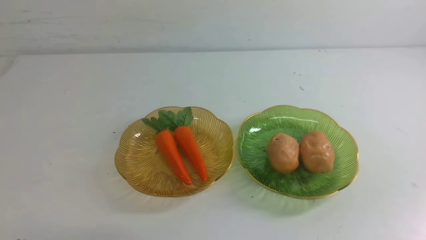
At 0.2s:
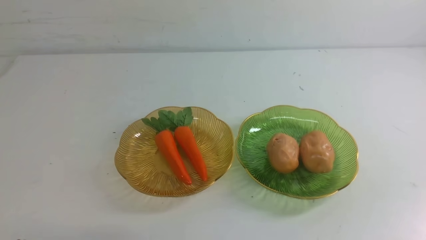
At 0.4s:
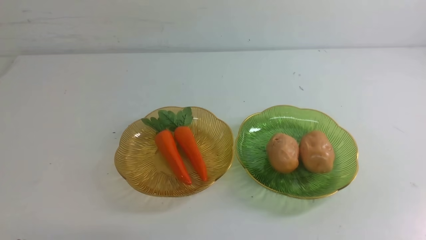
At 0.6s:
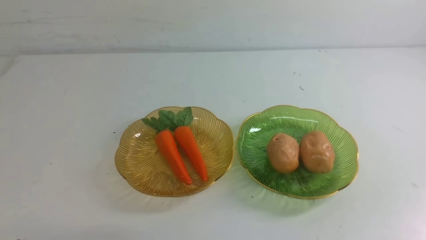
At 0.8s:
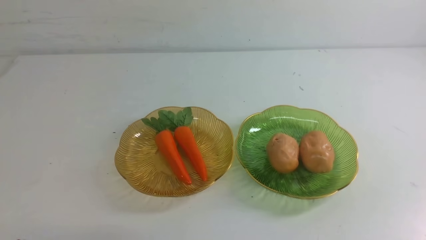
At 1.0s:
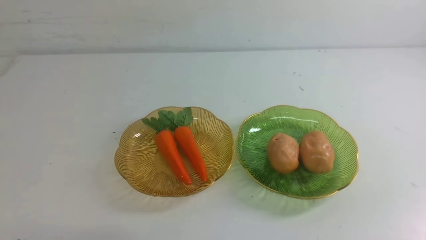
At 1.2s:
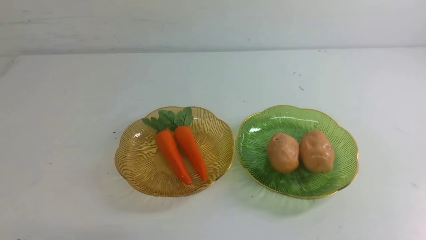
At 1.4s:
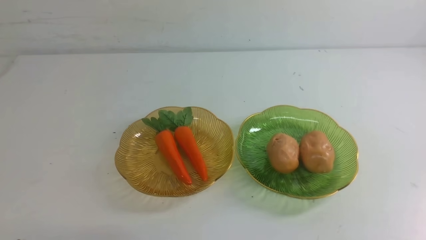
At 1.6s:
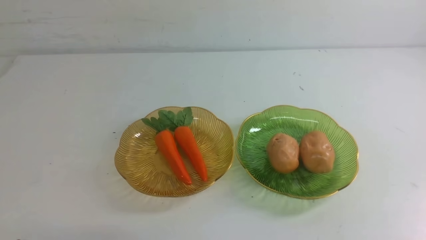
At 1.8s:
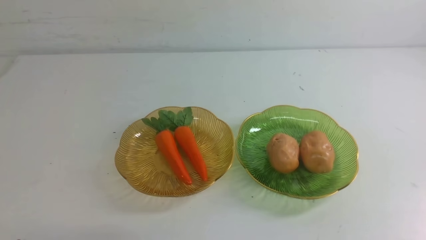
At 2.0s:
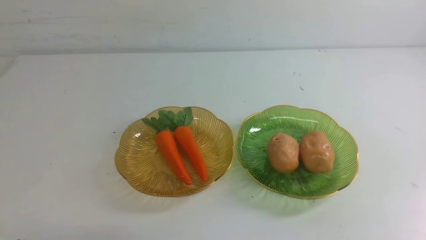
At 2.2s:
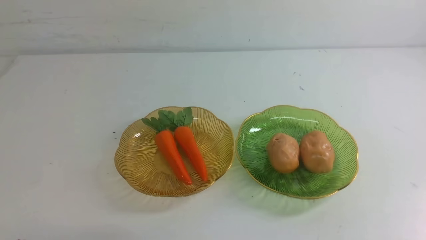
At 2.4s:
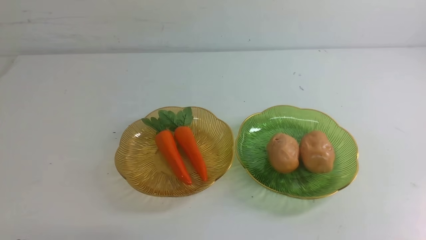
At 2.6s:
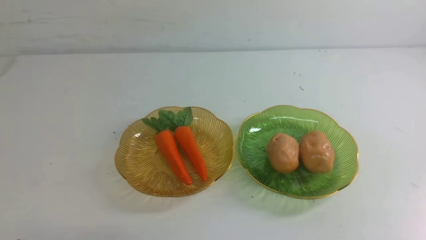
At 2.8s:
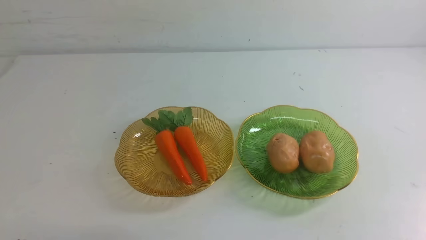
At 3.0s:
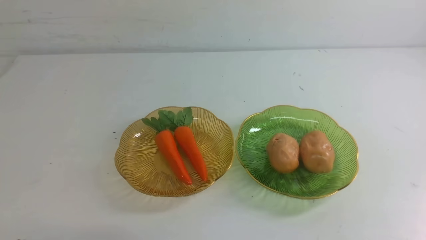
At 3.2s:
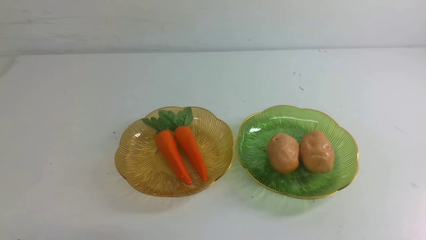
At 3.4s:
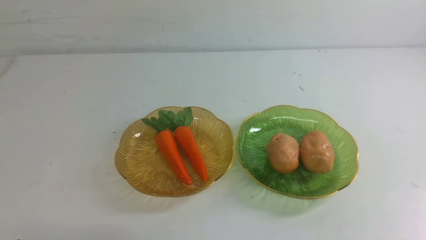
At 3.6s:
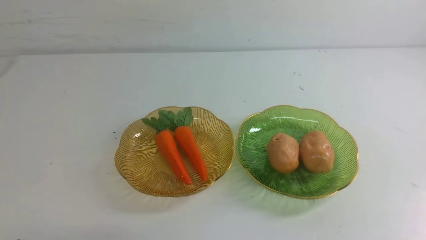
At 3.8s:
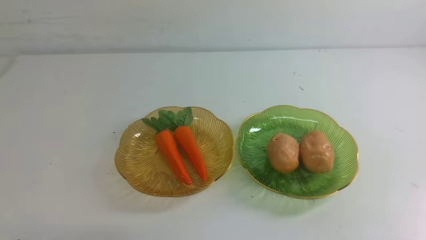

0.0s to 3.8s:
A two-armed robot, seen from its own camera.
2.6s to 3.8s: Neither gripper changes place.
